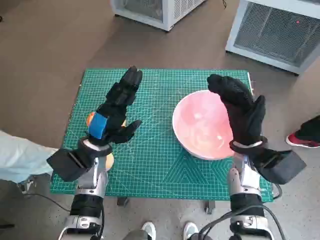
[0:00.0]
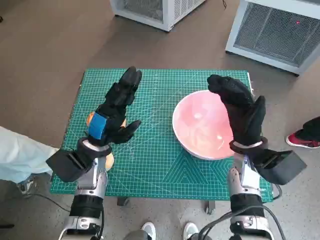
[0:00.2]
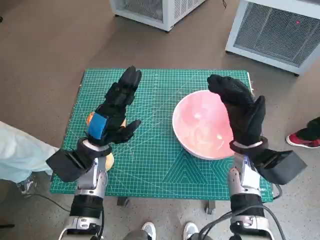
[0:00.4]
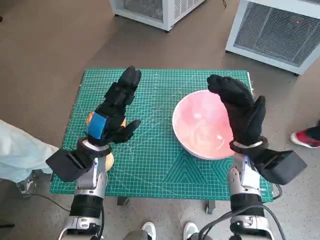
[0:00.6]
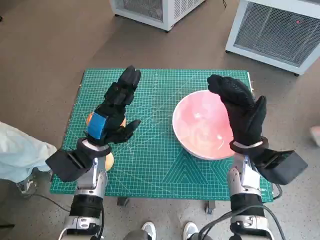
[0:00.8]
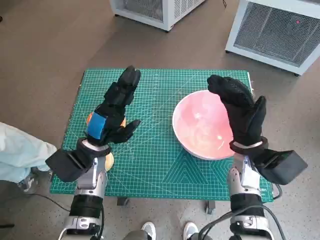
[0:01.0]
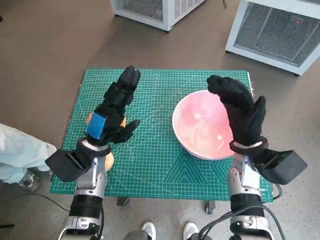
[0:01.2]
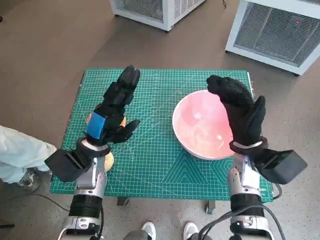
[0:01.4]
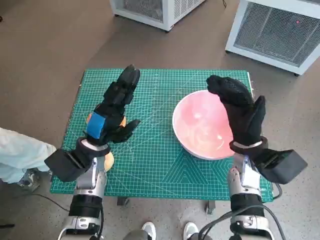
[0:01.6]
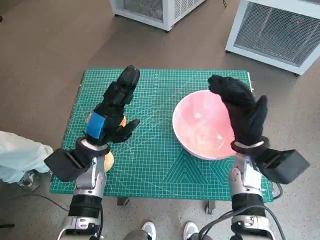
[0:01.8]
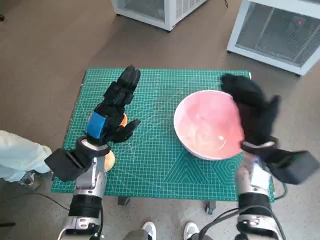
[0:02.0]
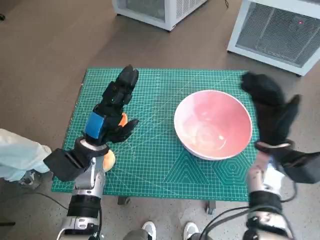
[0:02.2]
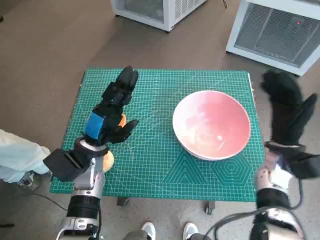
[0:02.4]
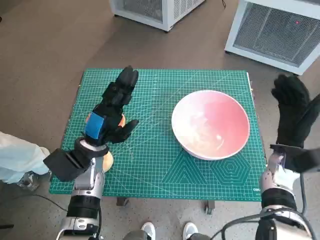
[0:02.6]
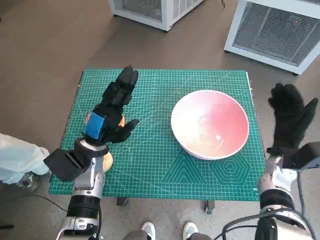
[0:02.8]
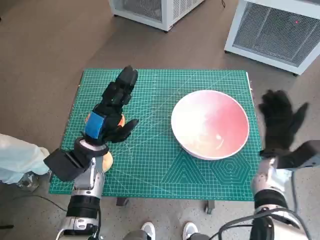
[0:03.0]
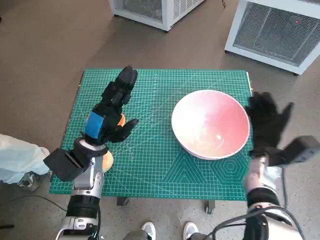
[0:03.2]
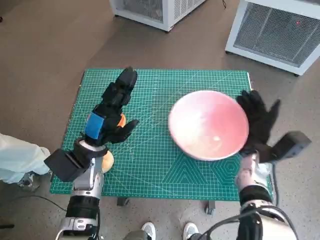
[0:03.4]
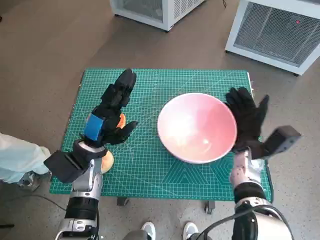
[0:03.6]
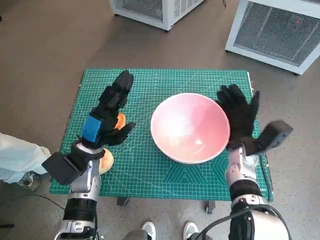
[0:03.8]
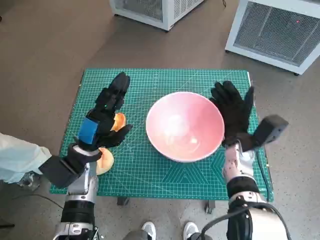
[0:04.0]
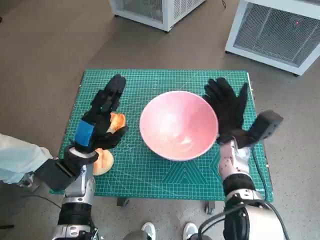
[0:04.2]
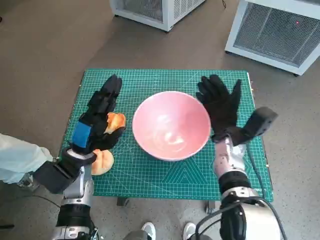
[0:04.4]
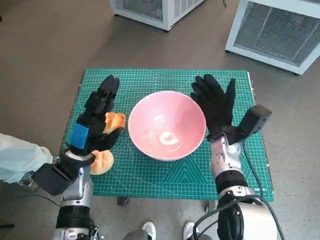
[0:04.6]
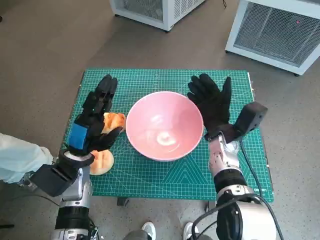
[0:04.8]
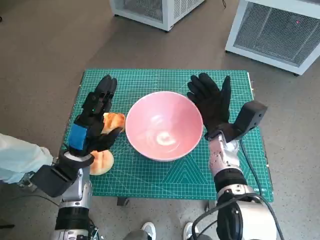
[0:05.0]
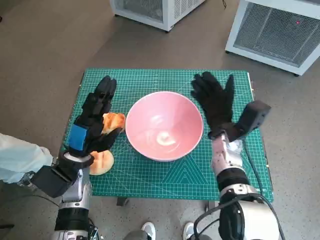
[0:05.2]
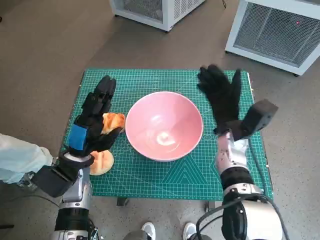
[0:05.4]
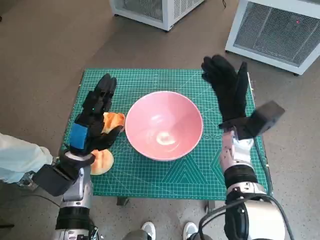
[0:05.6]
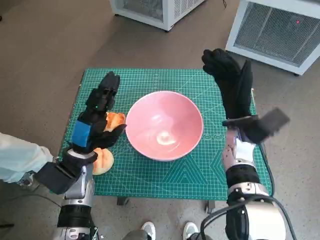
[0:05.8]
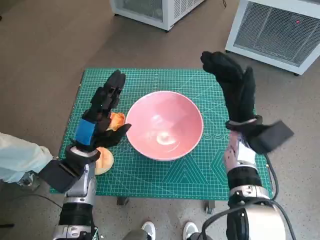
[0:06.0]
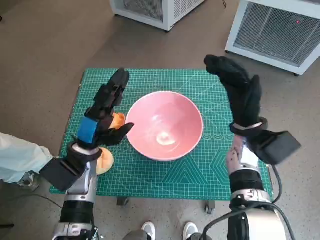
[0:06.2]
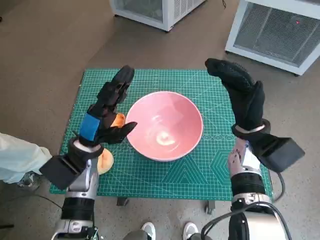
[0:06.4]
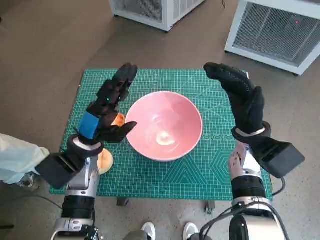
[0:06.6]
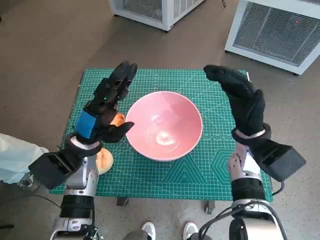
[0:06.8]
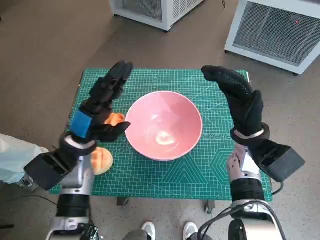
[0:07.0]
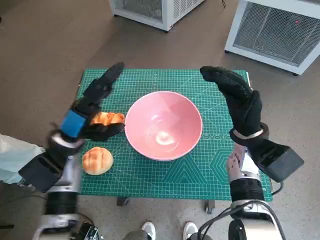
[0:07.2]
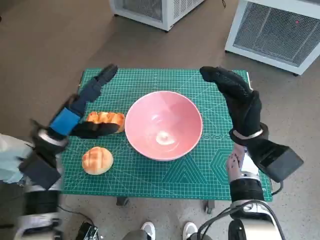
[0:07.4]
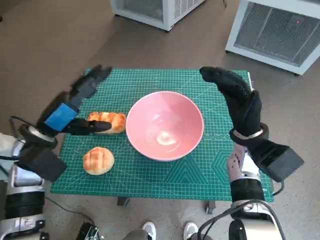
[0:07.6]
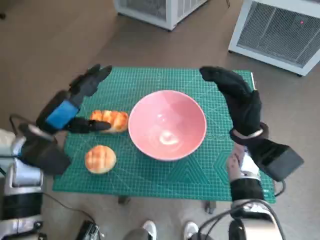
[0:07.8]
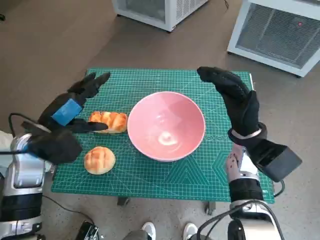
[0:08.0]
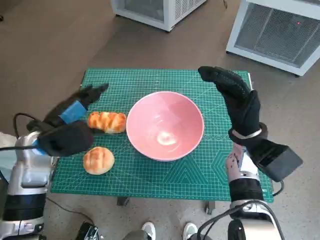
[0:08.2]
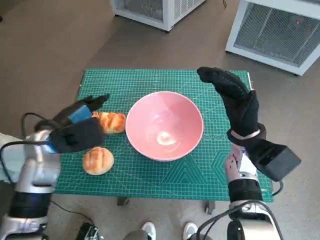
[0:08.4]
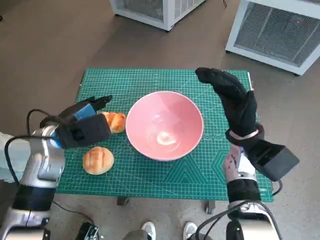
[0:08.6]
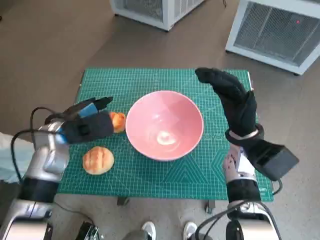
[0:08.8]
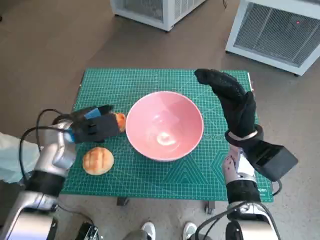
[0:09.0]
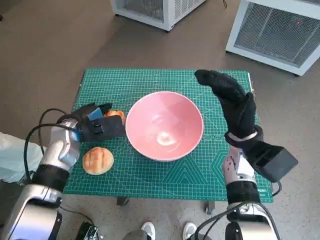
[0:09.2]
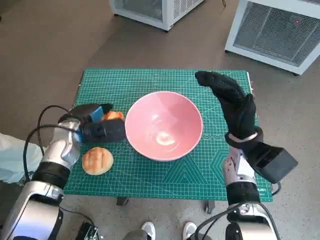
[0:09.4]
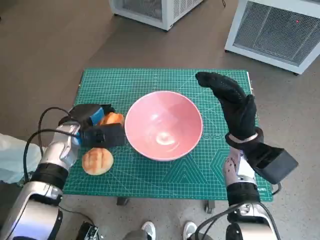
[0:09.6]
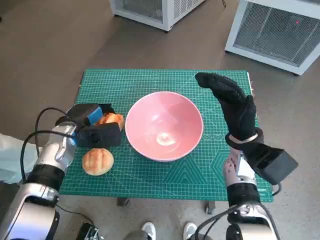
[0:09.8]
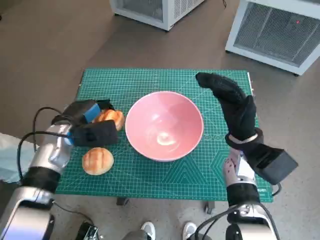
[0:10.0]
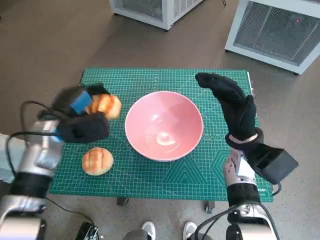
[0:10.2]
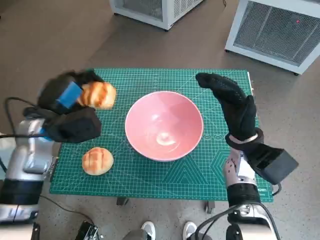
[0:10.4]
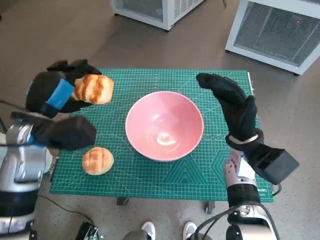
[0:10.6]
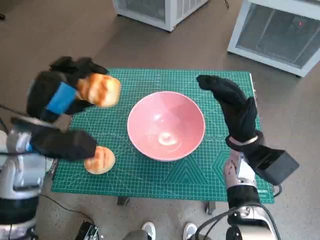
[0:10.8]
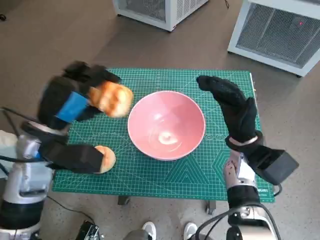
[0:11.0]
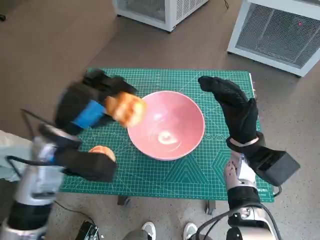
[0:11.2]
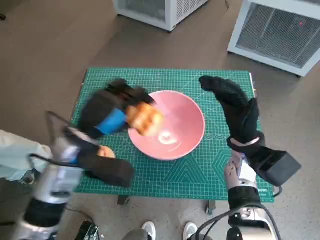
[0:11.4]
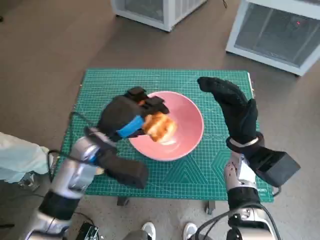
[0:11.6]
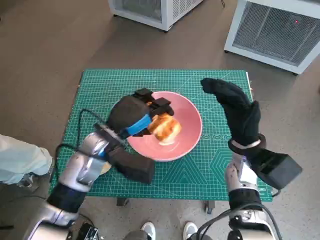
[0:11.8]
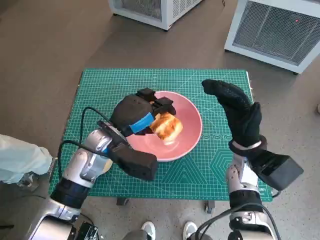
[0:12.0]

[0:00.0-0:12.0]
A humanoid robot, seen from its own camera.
Task of the whole recording: Push the bowl into the center of the table and put the bread into the bowl.
Step, 0:00.0 to 0:05.2: Move the pink bowl to the center of table with right hand.
Step, 0:05.4 to 0:09.4: Grasp the long bread with left hand.
0:01.6 to 0:03.0: The right hand heads to the right, covering about 5 cm.
0:03.0 to 0:04.4: The right hand is displaced to the left by some 10 cm.
0:04.4 to 0:06.0: The right hand is displaced upward by some 5 cm.
0:06.0 to 0:07.6: The left hand shifts some 10 cm upward and to the left.
0:07.6 to 0:09.0: The left hand ends up approximately 5 cm from where it was.
0:10.4 to 0:12.0: The left hand moves to the right, approximately 10 cm.

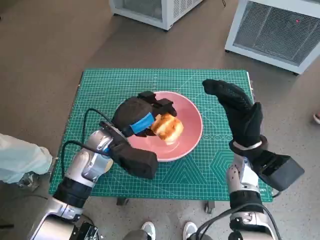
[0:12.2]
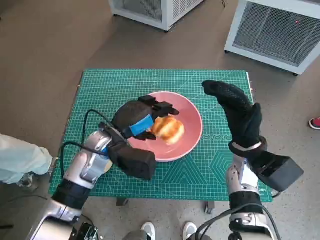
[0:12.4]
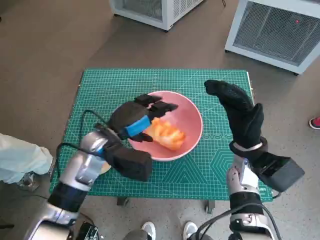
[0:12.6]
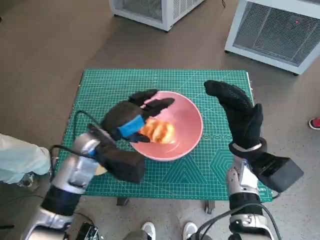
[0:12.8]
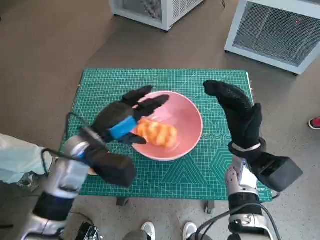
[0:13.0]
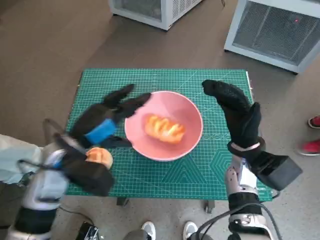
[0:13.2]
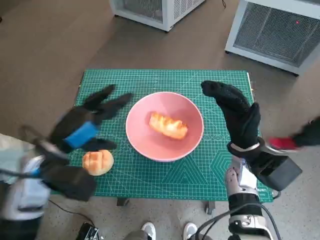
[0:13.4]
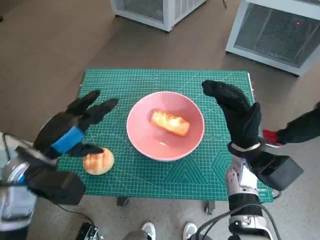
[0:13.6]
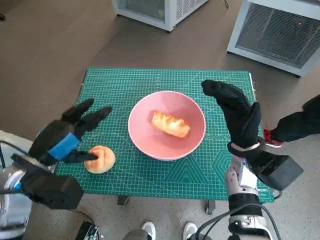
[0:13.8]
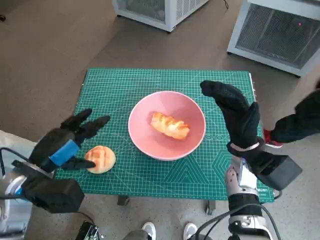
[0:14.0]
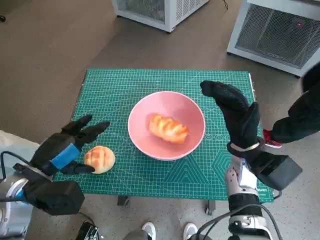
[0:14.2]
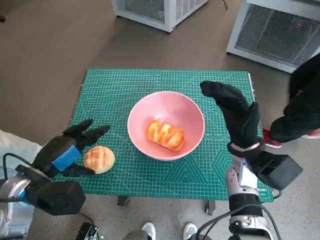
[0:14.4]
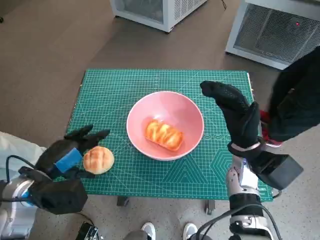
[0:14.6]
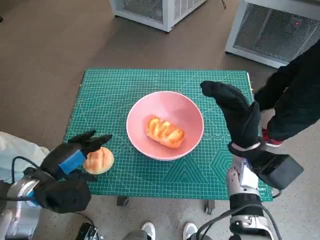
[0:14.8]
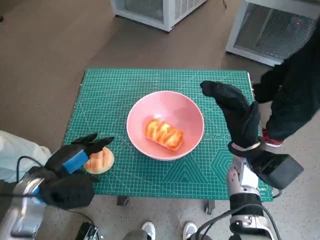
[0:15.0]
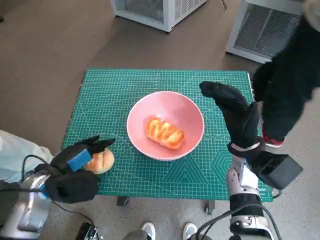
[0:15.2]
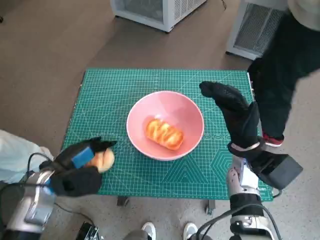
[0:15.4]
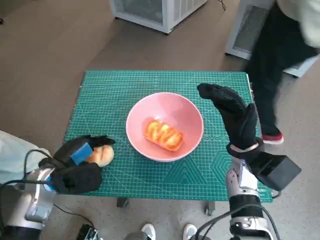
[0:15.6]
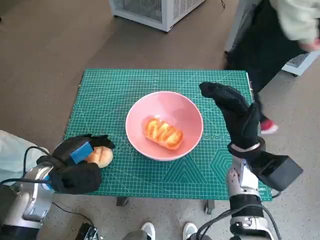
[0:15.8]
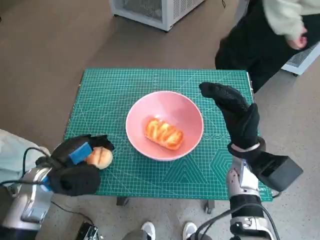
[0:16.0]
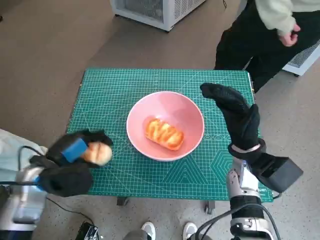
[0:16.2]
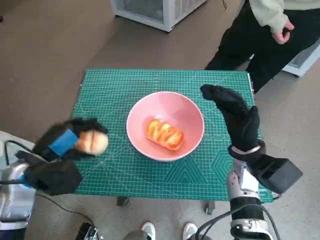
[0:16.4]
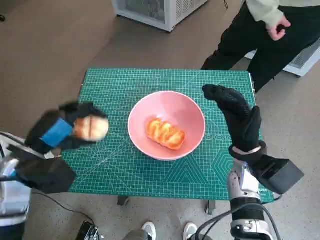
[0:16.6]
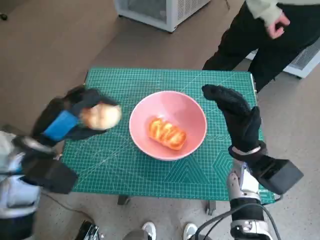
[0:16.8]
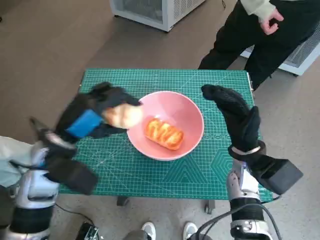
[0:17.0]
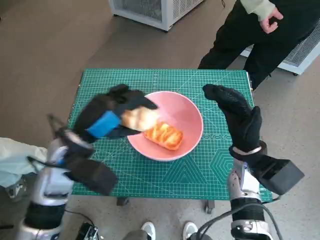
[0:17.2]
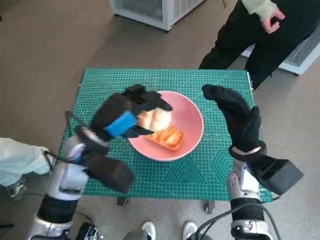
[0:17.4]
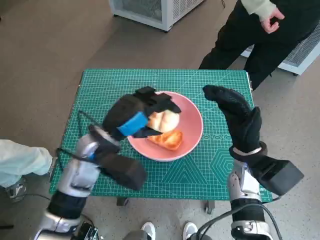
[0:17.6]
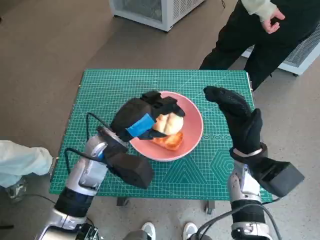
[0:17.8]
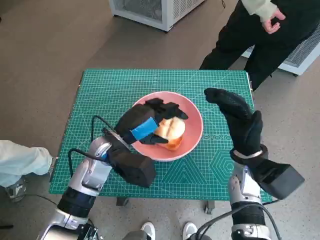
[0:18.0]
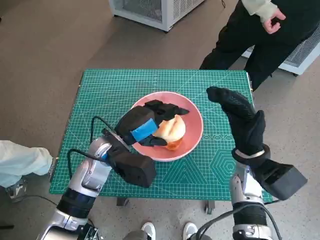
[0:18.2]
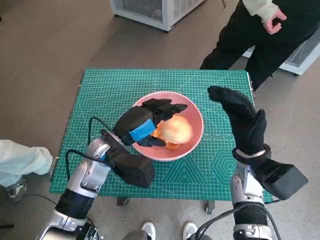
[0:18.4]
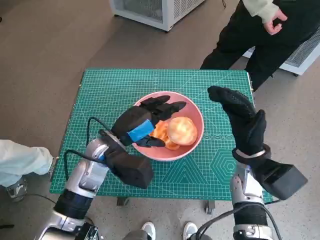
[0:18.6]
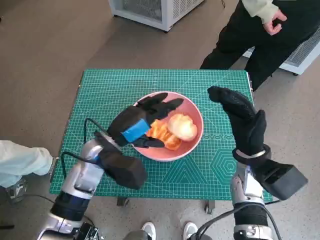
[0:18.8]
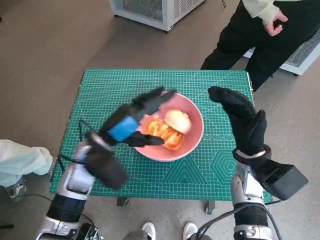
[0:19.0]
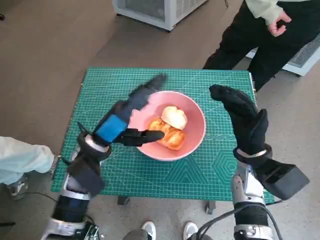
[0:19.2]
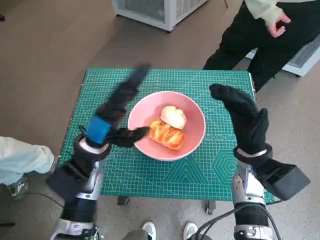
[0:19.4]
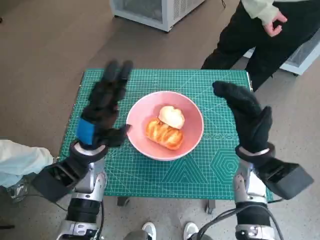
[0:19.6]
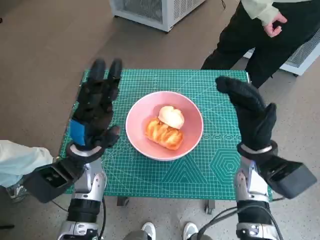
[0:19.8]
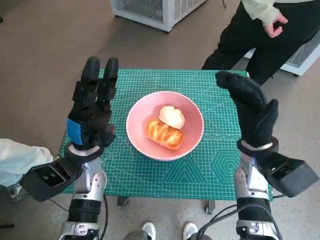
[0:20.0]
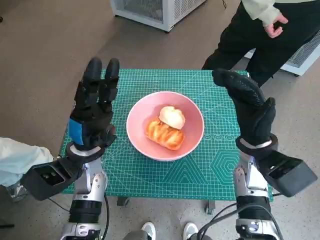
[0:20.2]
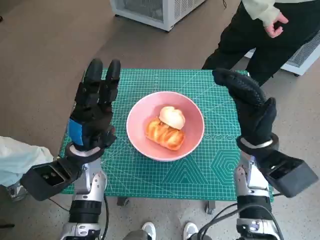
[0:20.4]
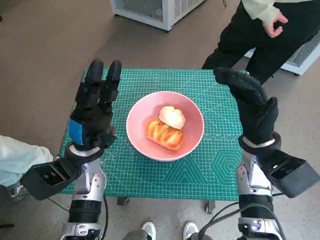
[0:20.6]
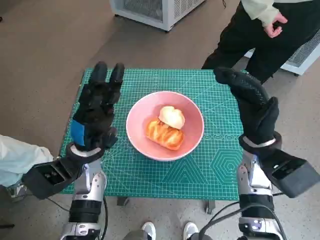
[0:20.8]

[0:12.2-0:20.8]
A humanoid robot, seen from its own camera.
Task of the whole recording: Push the bowl into the center of the table and put the bread into the bowl.
Step, 0:13.2 to 0:15.4: Grasp the round bread with left hand.
Step, 0:15.8 to 0:18.6: Place the round bread in pink bowl with left hand.
0:12.2 to 0:13.6: The left hand travels to the left and backward by some 15 cm.
0:13.6 to 0:15.0: The left hand heads downward, covering approximately 5 cm.
0:15.0 to 0:16.6: The left hand goes some 5 cm upward.
0:16.6 to 0:18.0: The left hand moves to the right and forward, about 15 cm.

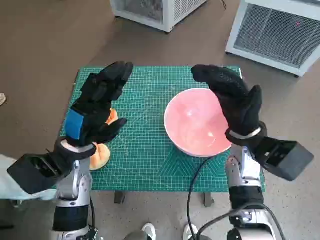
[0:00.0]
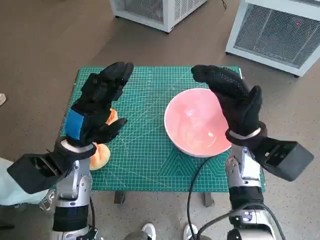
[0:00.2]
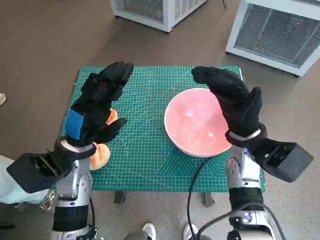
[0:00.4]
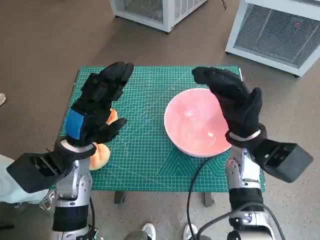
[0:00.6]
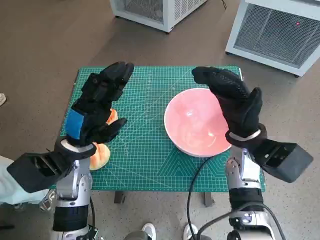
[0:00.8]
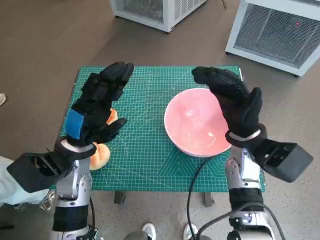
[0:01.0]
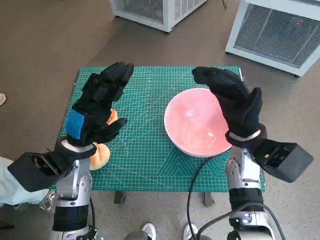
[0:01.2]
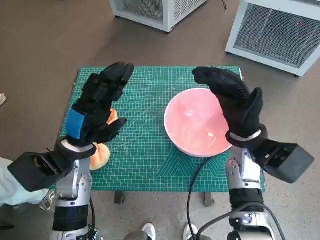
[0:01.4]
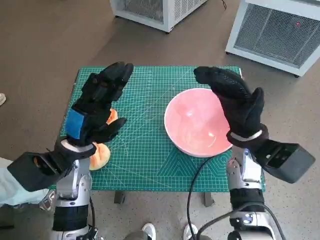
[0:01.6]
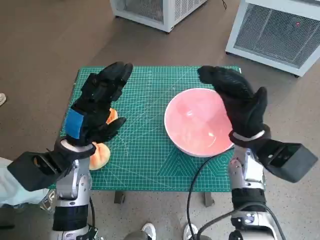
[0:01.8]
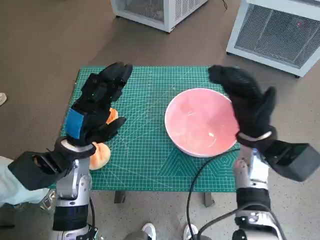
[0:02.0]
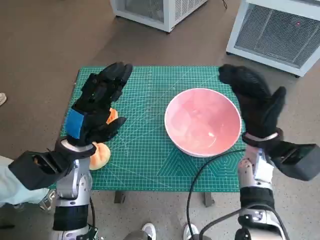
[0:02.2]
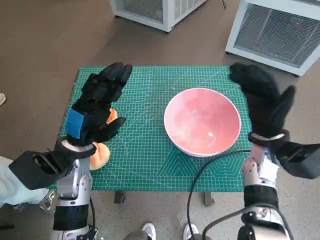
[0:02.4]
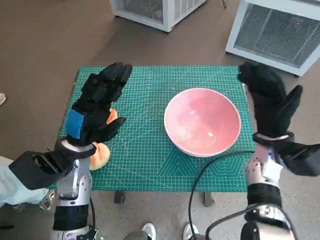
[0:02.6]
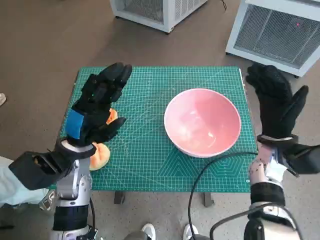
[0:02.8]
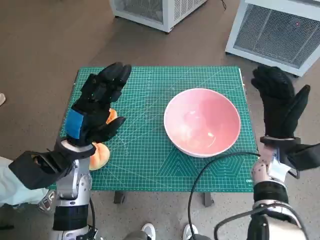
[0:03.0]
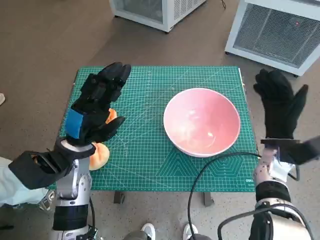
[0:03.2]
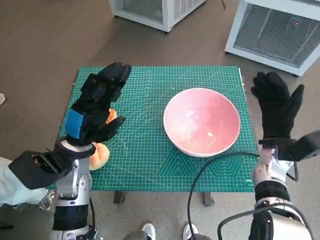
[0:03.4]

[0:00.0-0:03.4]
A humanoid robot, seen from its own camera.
Task of the whole recording: Push the bowl into the center of the table and put the bread into the bowl.
0:01.6 to 0:03.4: The right hand heads to the right and downward, covering roughly 10 cm.
